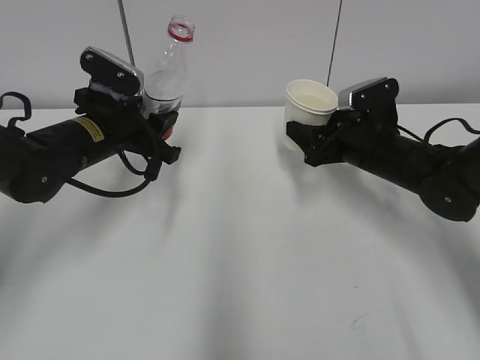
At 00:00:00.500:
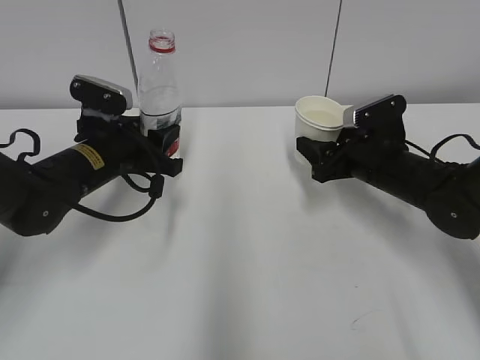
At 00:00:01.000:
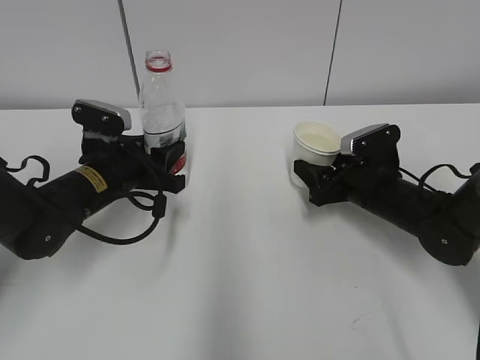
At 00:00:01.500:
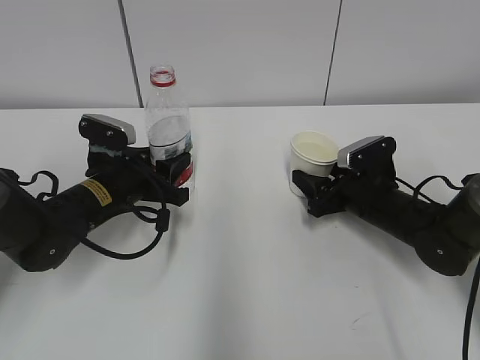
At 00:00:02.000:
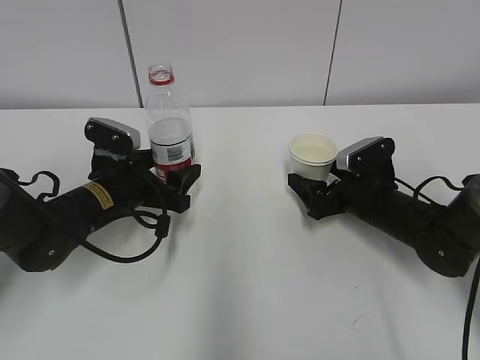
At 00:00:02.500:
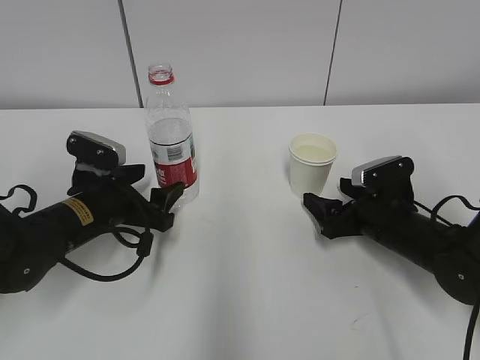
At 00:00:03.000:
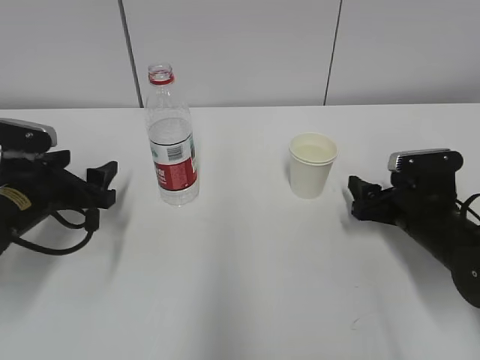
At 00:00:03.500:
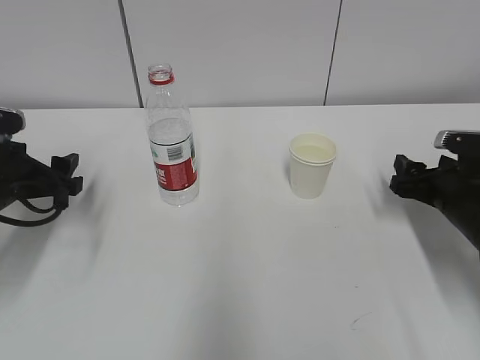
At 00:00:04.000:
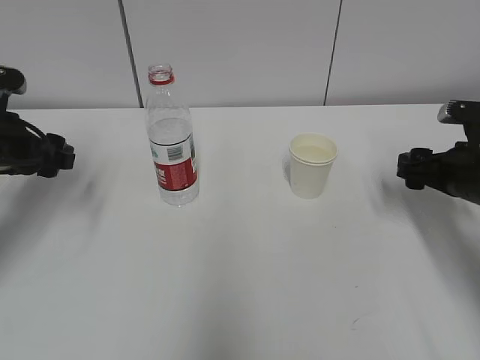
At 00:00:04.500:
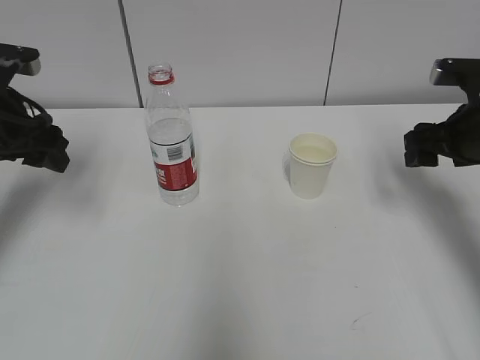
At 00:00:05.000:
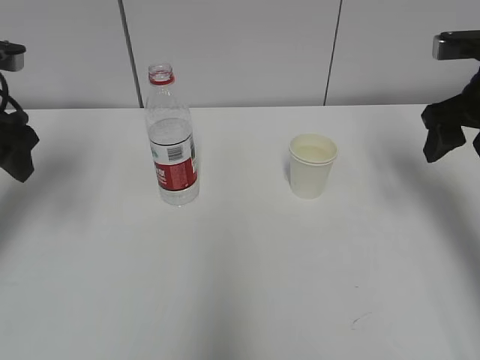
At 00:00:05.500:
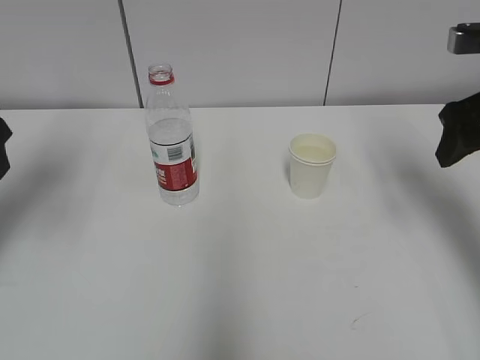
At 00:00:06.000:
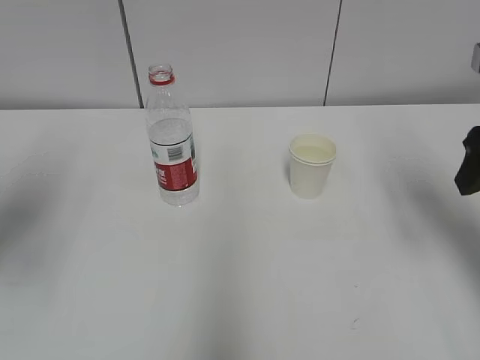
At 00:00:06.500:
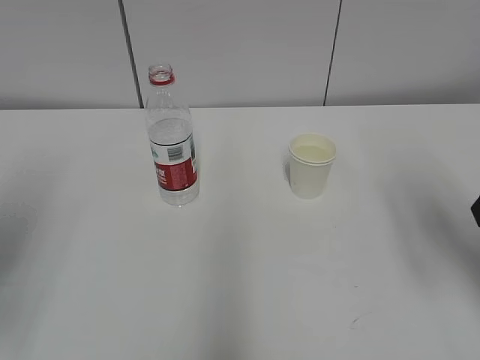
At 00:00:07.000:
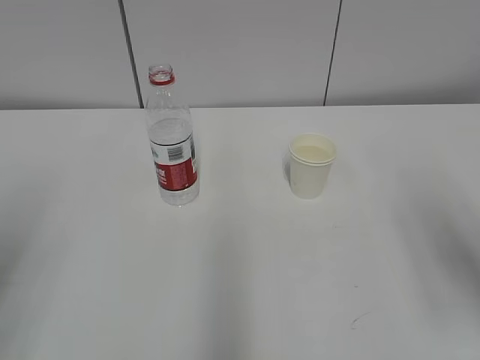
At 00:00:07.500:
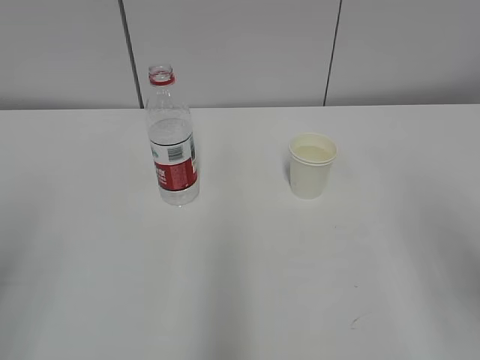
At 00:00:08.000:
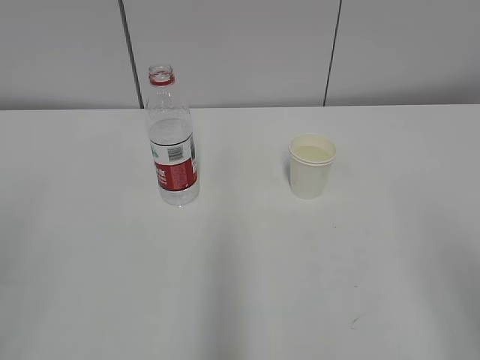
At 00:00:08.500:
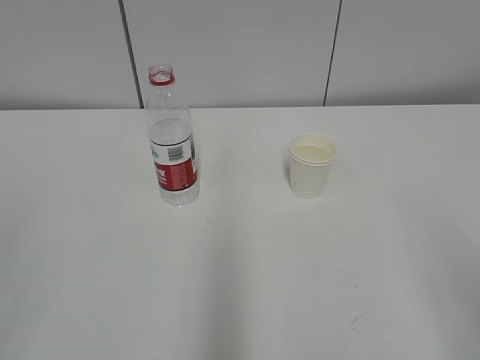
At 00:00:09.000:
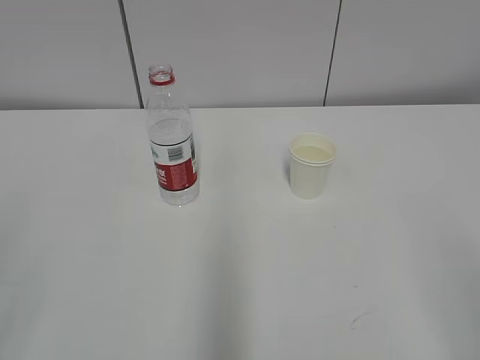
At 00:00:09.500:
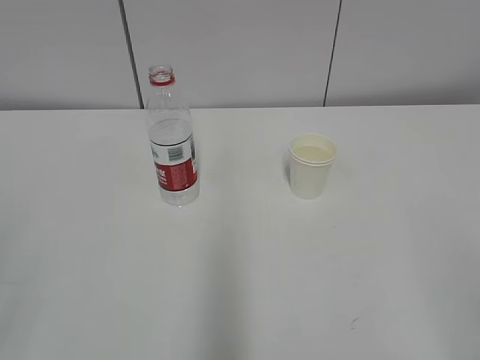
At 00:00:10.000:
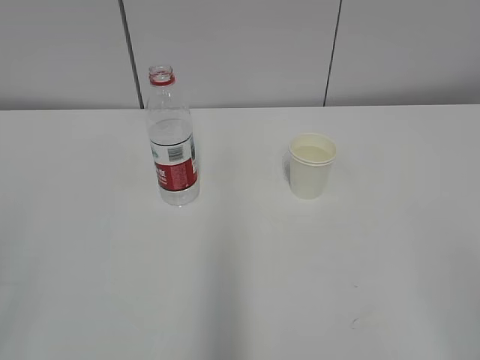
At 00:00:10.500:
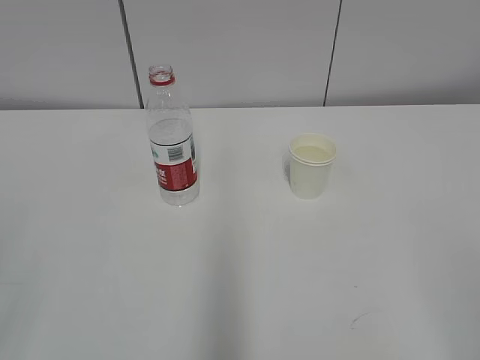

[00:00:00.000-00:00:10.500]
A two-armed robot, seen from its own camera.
00:00:00.000 to 00:00:02.000: Both grippers travel together downward, about 10 cm. The right gripper opens its fingers. The left gripper opens up.
00:00:02.000 to 00:00:04.000: The left gripper is displaced to the left and upward by approximately 15 cm; the right gripper moves to the right and upward, about 10 cm, and closes up.
00:00:04.000 to 00:00:06.500: The right gripper is displaced upward and backward by roughly 20 cm, while the left gripper goes approximately 20 cm backward and upward.
00:00:06.500 to 00:00:08.500: The two grippers go about 15 cm backward.

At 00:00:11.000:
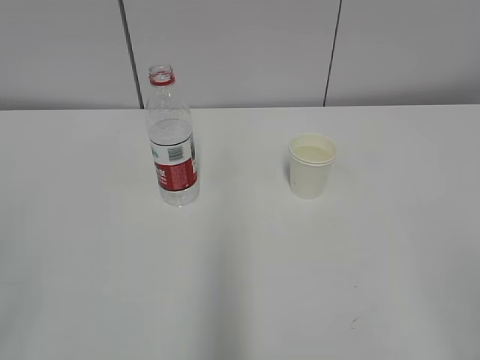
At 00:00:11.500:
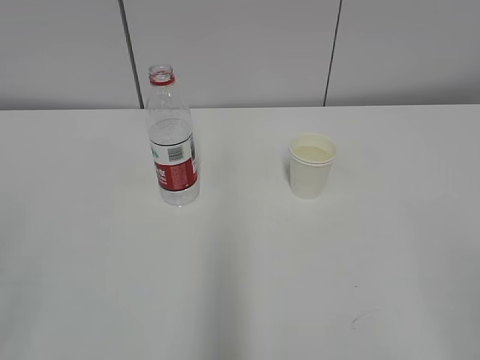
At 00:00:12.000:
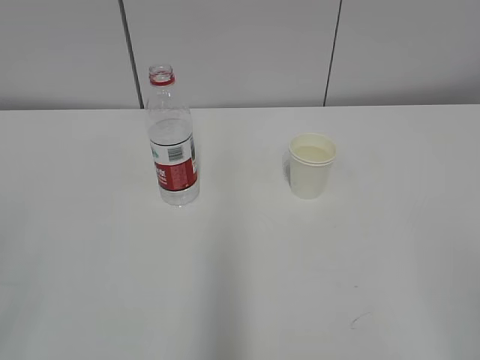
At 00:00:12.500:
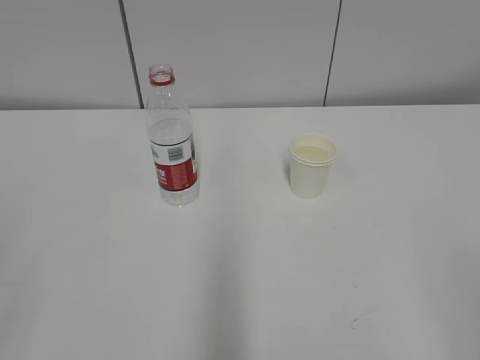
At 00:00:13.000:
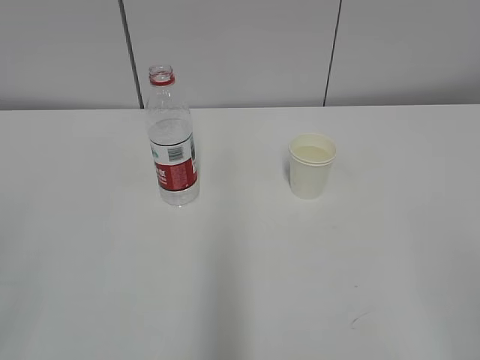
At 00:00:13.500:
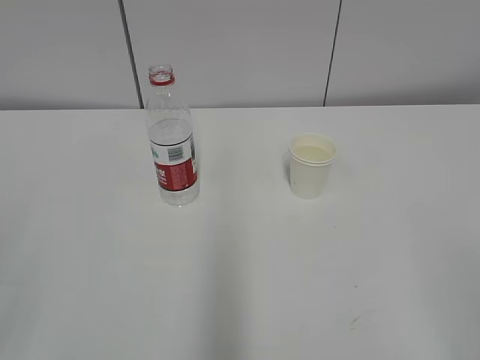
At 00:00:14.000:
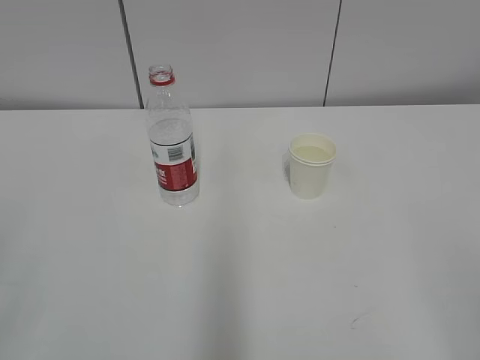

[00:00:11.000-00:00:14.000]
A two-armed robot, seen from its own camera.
00:00:11.000 to 00:00:14.000: Both grippers stay about where they are.

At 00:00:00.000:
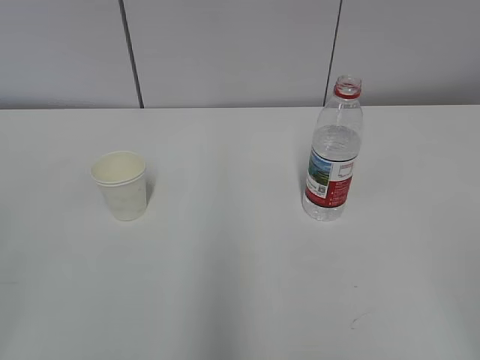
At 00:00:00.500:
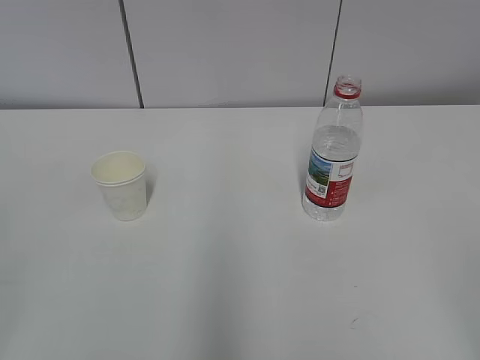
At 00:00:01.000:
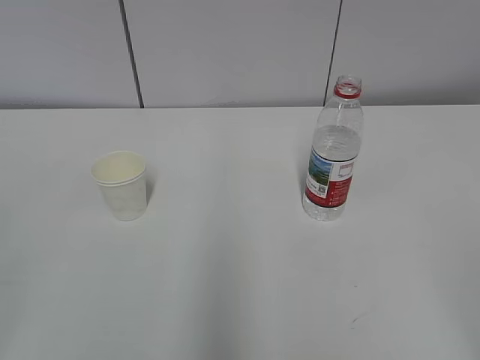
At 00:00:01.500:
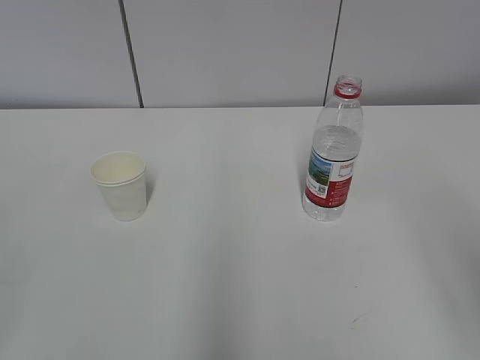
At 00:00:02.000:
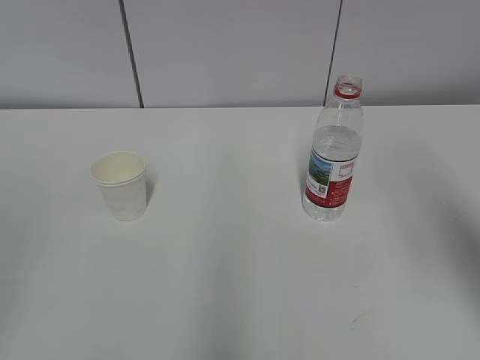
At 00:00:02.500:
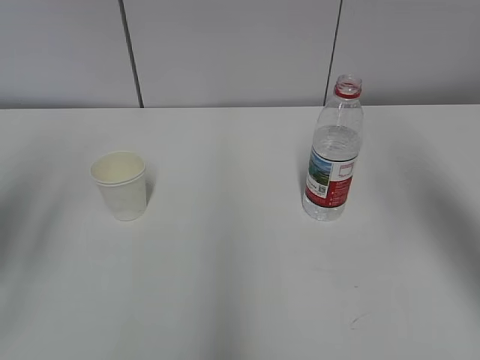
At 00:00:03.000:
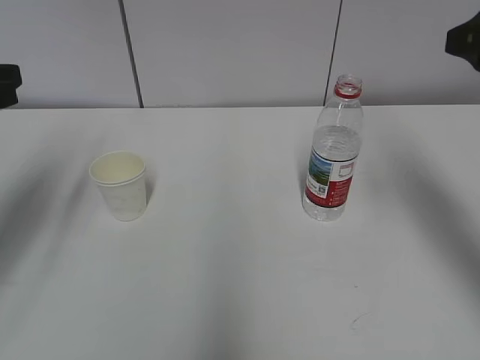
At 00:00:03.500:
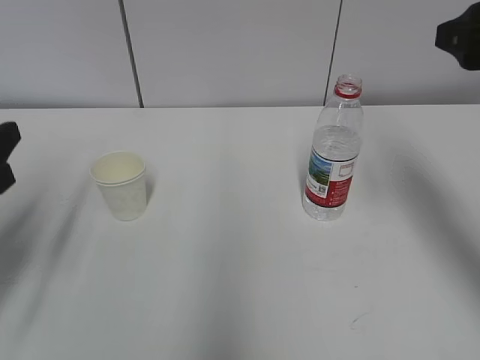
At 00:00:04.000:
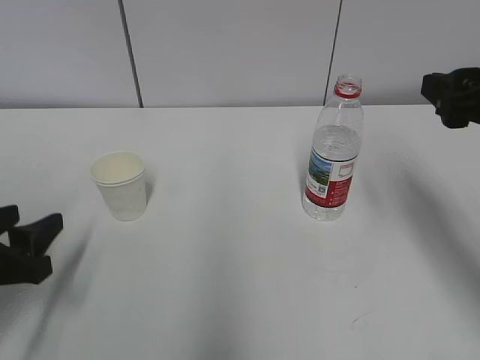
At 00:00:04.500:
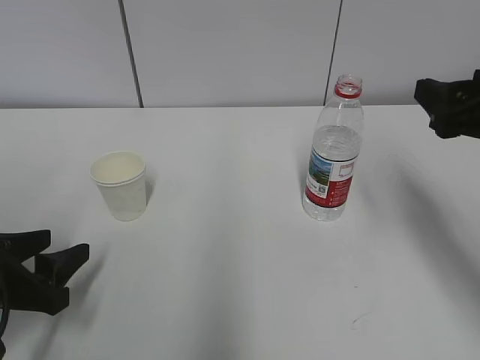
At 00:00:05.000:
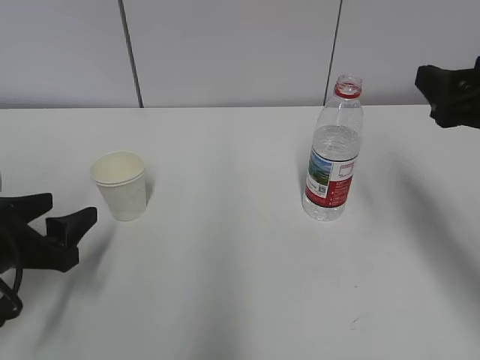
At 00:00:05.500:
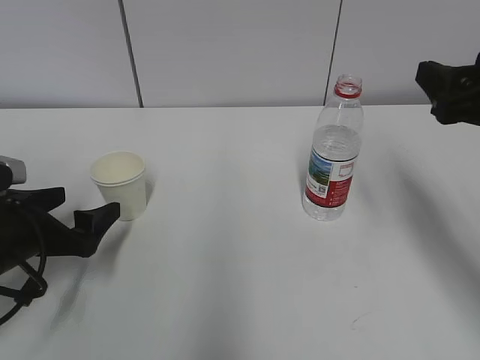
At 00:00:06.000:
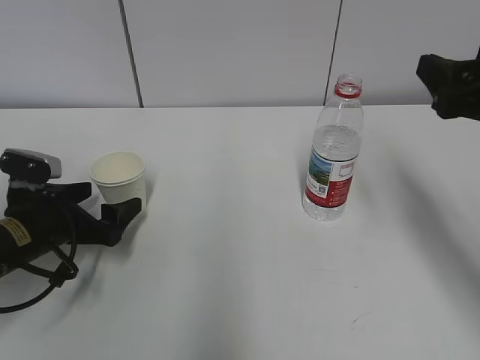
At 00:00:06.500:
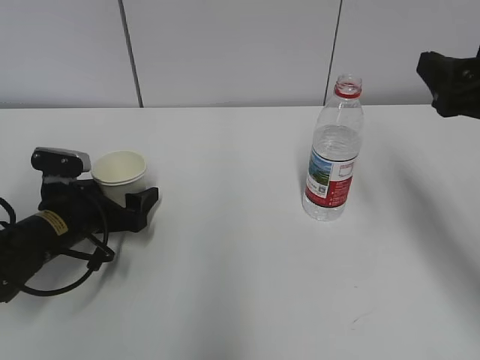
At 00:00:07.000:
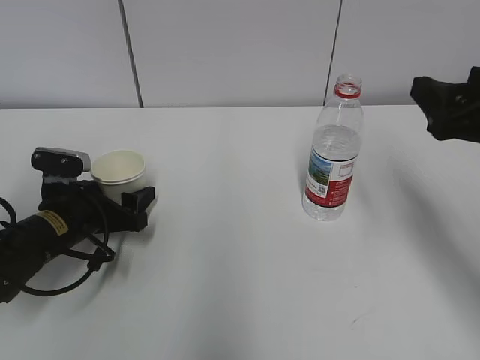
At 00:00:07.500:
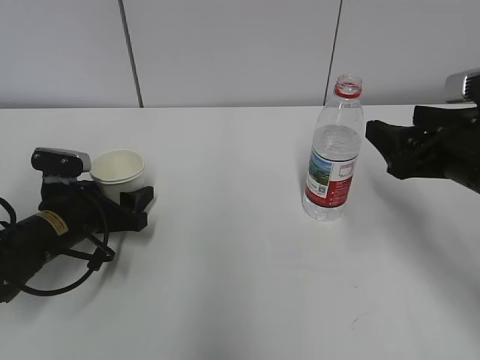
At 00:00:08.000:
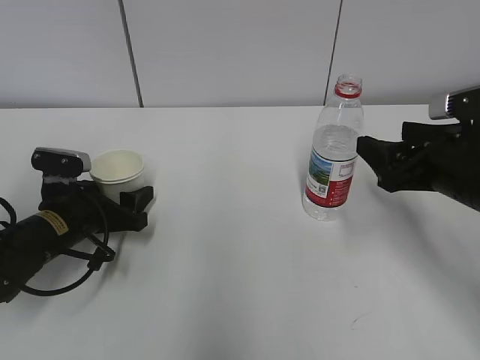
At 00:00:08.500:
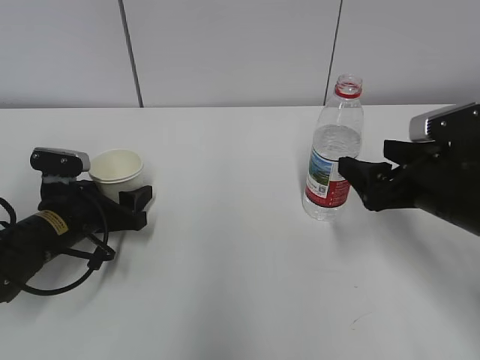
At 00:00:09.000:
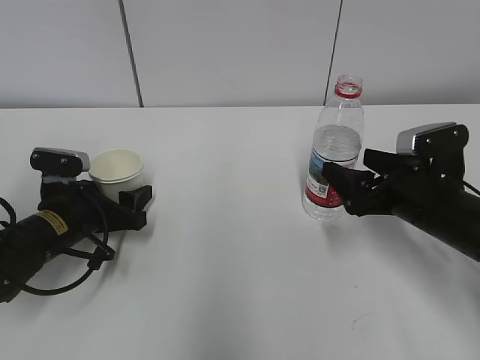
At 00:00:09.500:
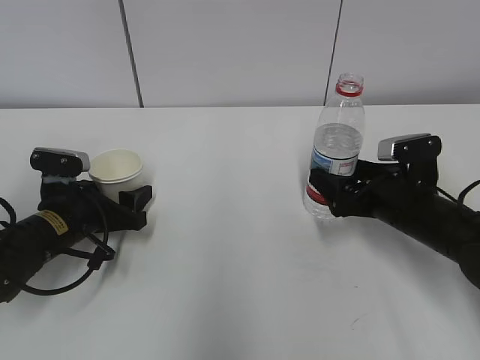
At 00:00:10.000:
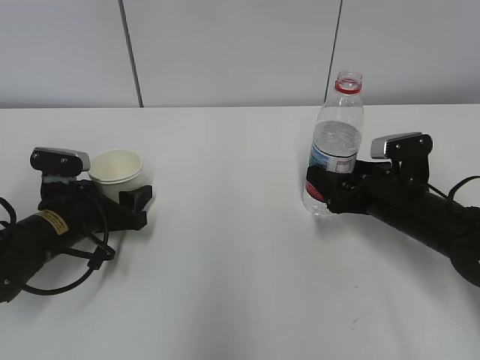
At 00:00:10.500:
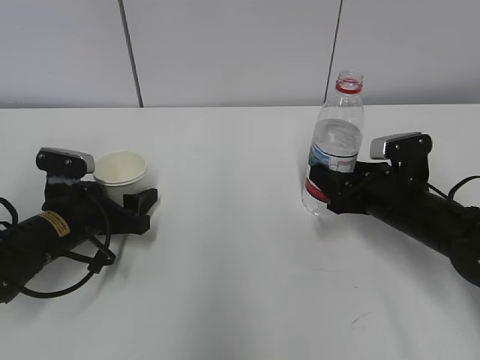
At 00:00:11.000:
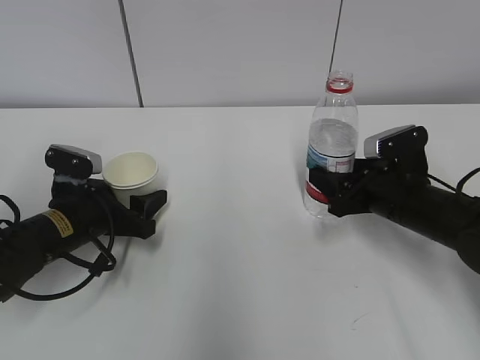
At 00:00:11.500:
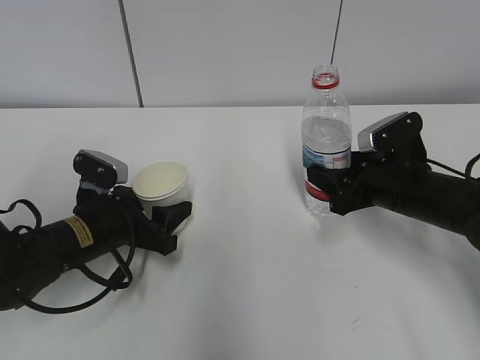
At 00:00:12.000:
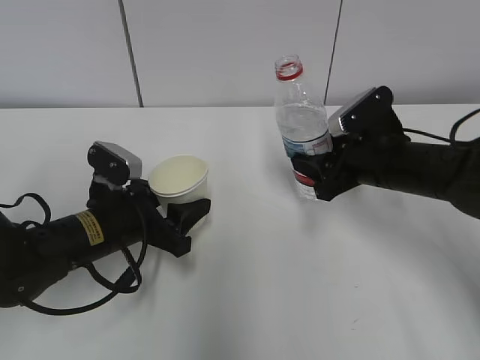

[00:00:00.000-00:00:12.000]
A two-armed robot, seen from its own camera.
Step, 00:00:00.000 to 00:00:08.500: Grab the paper cup with the left hand.
00:00:02.000 to 00:00:04.000: The right gripper heads forward and downward, covering some 15 cm. Meanwhile the left gripper heads downward and forward, covering roughly 25 cm.
00:00:04.000 to 00:00:06.000: The left gripper shifts roughly 10 cm forward and downward, and opens its fingers.
00:00:06.000 to 00:00:08.000: The right gripper heads downward, covering approximately 10 cm. The left gripper closes its fingers.
00:00:08.000 to 00:00:10.000: The right gripper is displaced downward and forward by roughly 10 cm.
00:00:10.000 to 00:00:12.000: The right gripper heads upward, covering approximately 5 cm, and closes its fingers. Meanwhile the left gripper heads to the right, covering roughly 5 cm.
